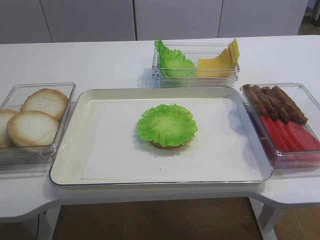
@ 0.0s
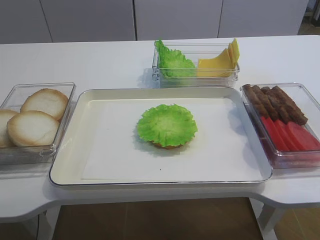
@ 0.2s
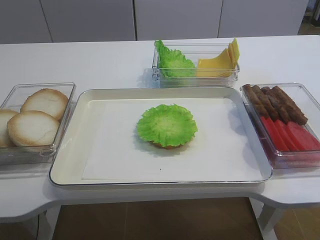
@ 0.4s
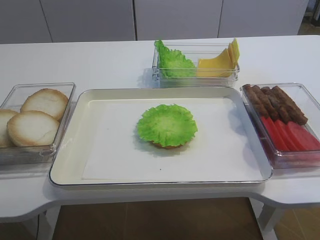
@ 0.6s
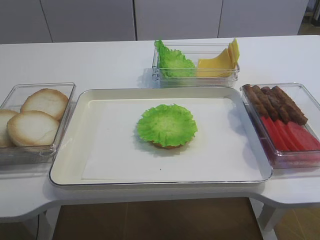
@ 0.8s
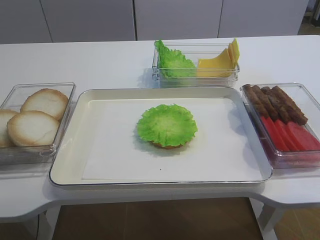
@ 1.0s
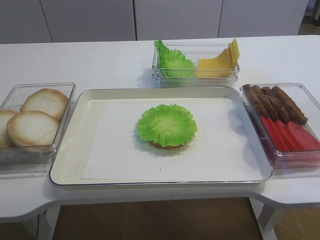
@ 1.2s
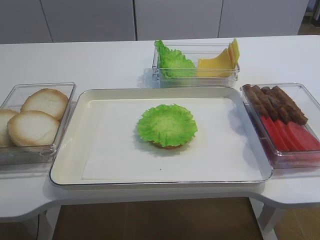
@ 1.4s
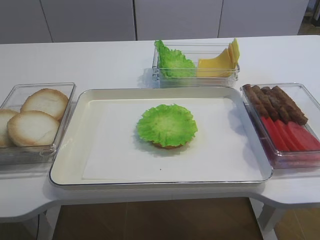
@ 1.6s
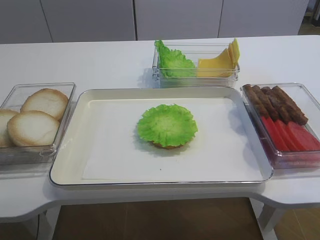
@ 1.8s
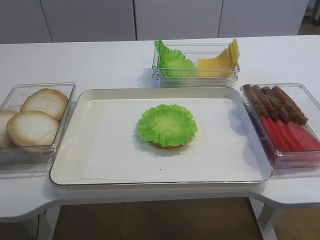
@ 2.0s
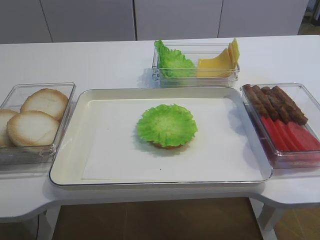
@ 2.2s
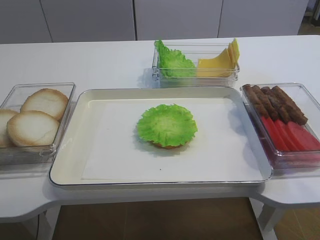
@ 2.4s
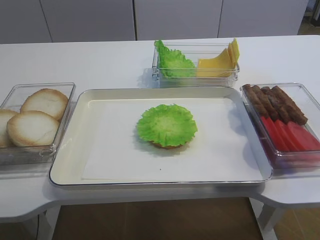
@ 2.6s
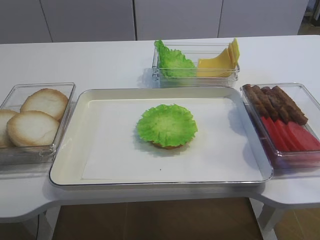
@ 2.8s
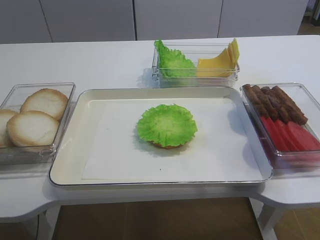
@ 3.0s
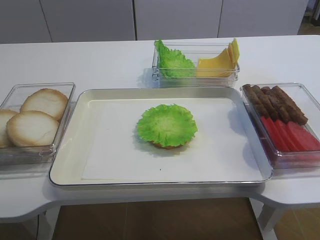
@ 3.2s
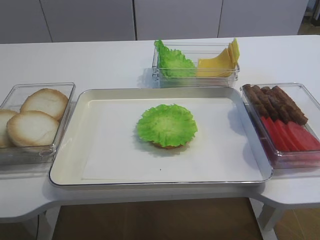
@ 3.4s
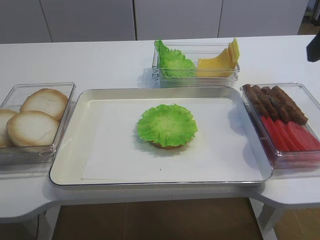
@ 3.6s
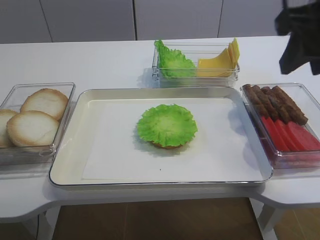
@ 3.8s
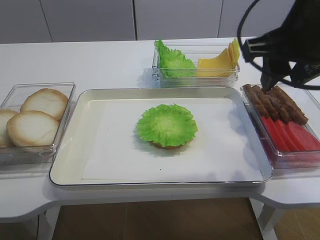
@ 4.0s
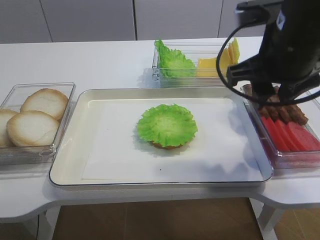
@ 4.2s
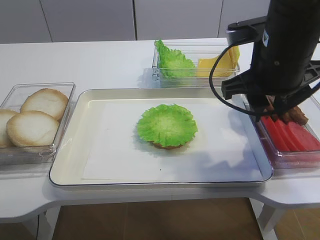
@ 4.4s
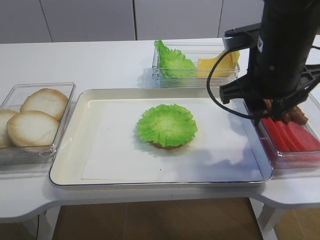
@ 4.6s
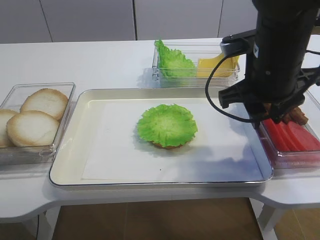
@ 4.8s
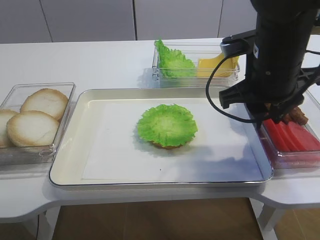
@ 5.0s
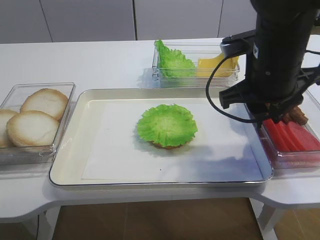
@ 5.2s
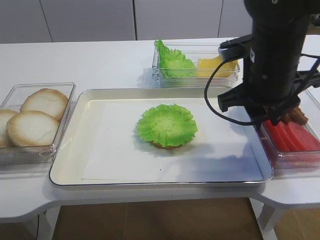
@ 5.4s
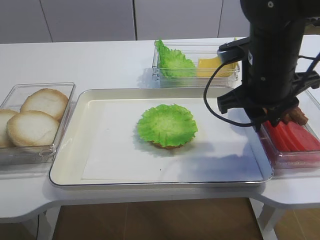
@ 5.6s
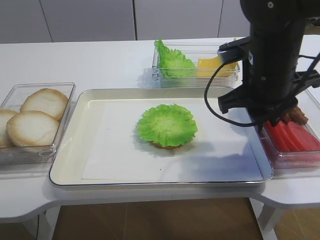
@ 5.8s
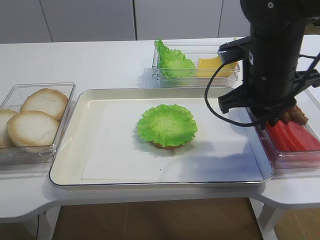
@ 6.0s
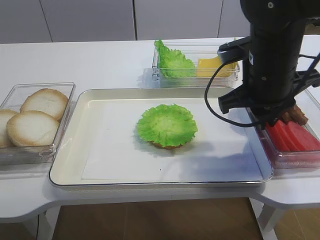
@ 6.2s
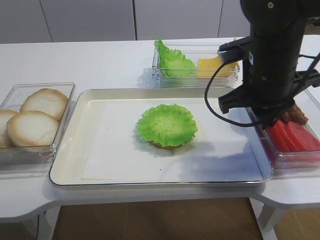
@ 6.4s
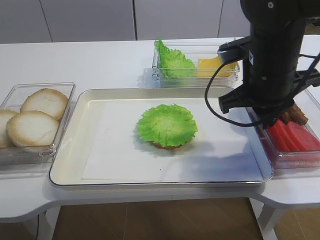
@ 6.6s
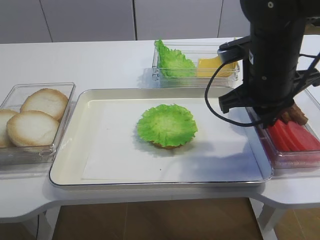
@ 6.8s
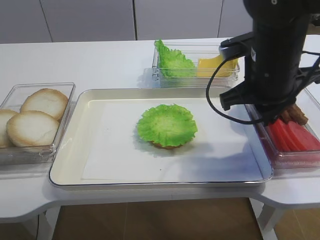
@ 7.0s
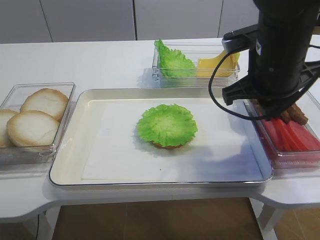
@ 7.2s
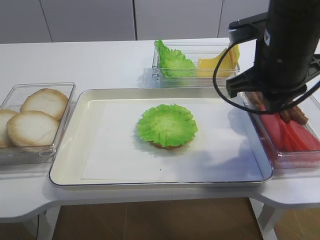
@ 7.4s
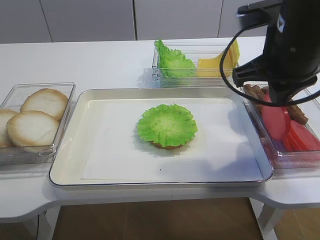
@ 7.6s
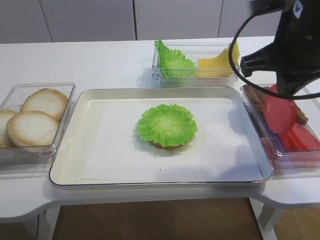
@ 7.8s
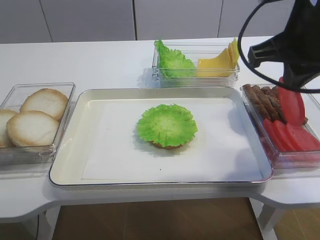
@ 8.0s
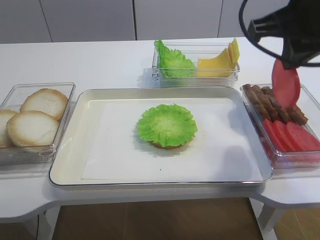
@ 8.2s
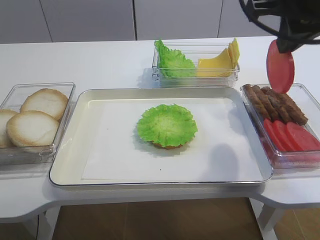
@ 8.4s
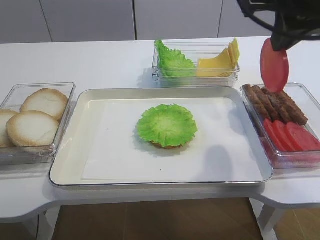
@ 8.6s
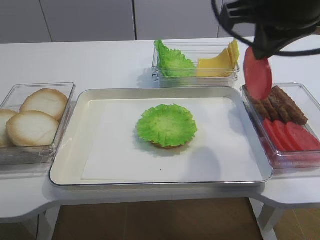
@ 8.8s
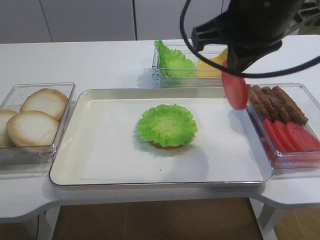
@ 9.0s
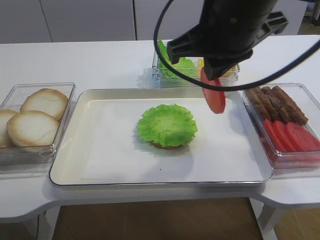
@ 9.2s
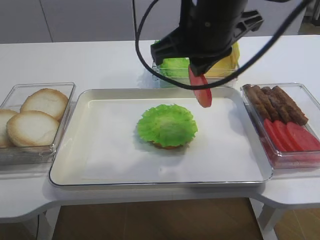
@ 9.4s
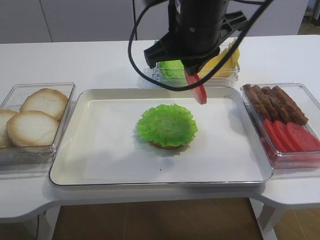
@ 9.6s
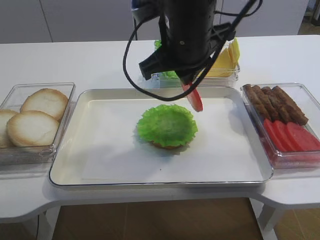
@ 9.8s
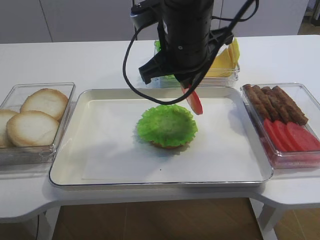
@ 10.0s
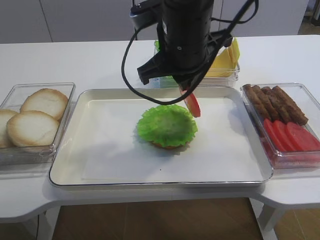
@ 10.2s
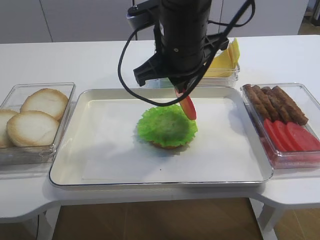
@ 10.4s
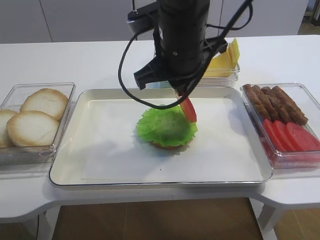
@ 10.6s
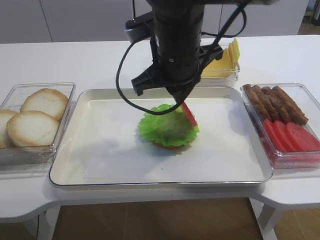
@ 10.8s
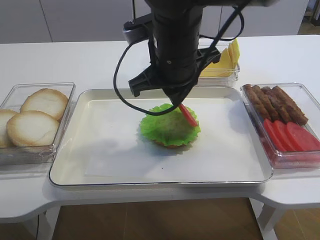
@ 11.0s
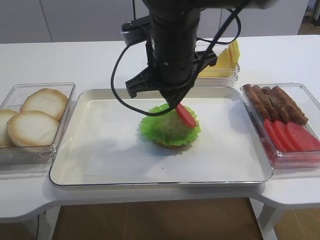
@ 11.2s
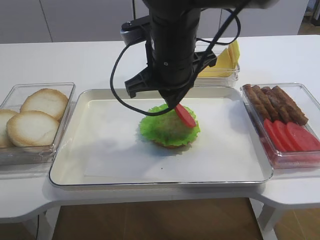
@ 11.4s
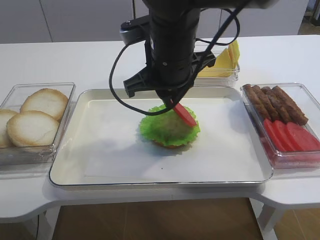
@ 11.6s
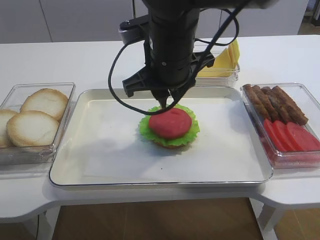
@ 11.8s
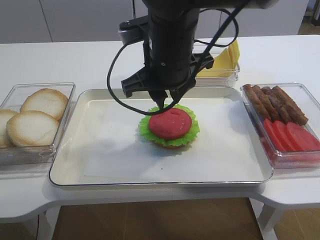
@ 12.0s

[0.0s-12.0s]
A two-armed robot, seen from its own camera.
Step, 0.0s to 7.6s: Pick up the tomato slice with the right gripper.
3.0s to 4.4s: The right gripper heads forward, to the left and downward, covering approximately 20 cm.
4.4s to 6.0s: The right gripper closes up.
6.0s to 7.6s: The right gripper ends up about 5 cm from where it was.
7.6s to 9.0s: The right gripper travels upward by about 5 cm.
9.0s to 10.4s: The right gripper shifts roughly 10 cm to the left, downward and forward.
10.4s to 12.0s: The right gripper opens its fingers.

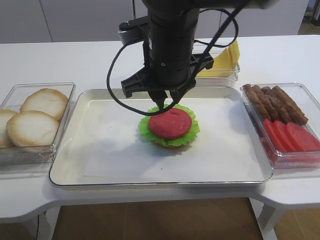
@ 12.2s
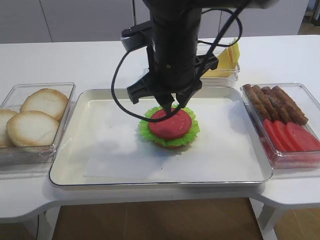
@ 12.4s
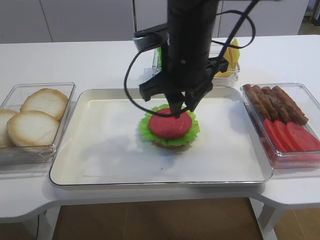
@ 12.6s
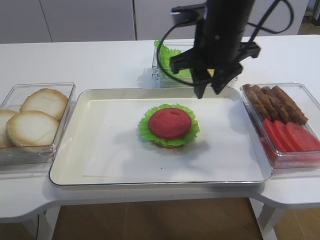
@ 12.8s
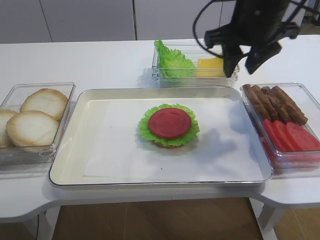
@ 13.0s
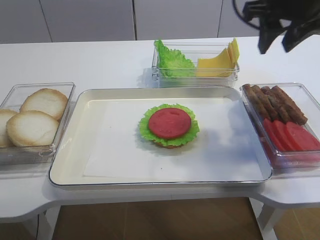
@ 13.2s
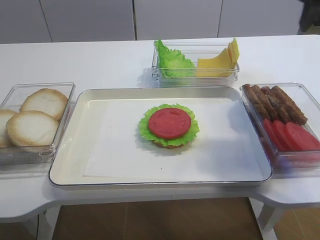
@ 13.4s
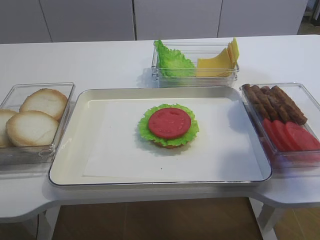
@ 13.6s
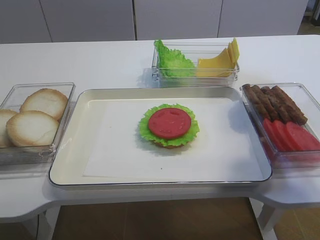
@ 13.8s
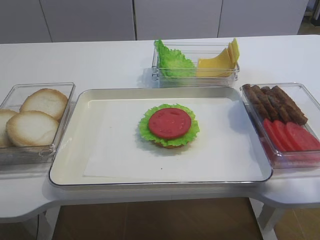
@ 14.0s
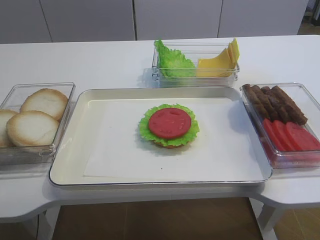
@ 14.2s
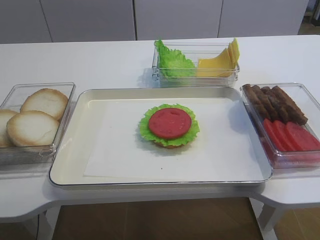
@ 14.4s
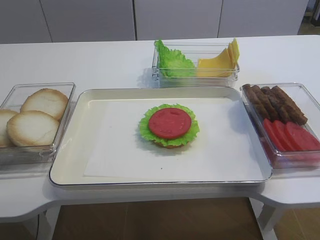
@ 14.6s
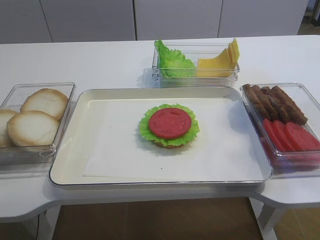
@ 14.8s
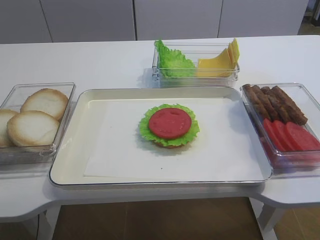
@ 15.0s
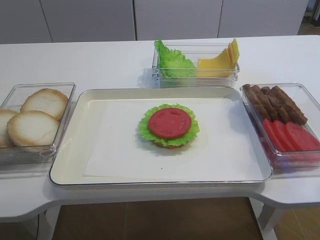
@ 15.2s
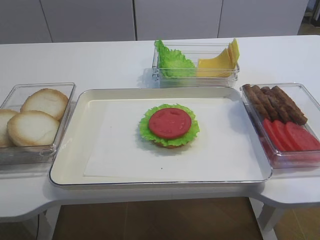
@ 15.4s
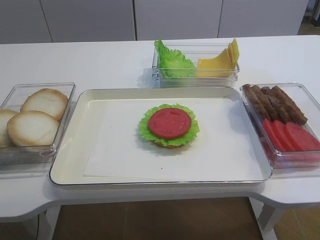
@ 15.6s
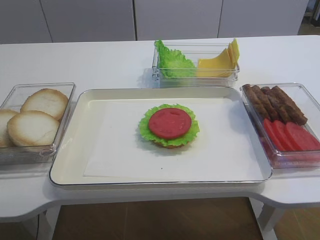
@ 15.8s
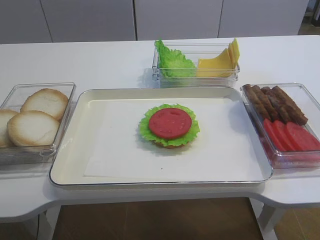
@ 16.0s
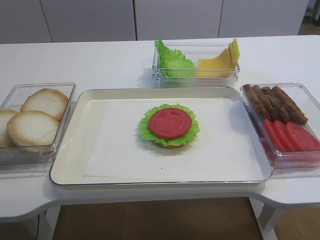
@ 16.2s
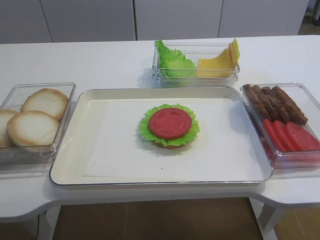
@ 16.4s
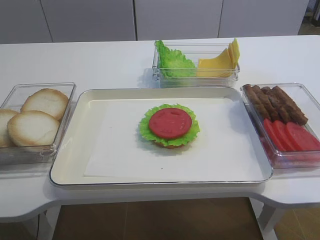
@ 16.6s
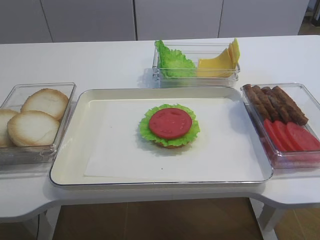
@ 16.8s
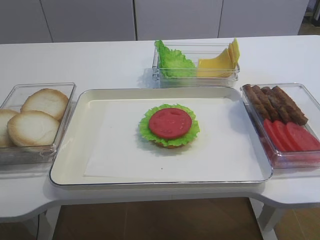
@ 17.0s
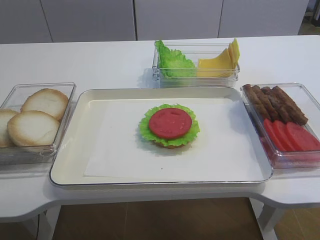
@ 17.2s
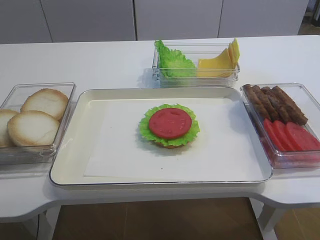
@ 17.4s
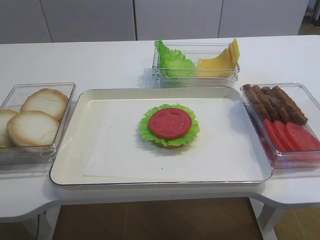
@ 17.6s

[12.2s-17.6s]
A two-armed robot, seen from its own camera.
12.2s to 13.6s: The right gripper goes approximately 30 cm to the right and upward.
13.6s to 15.0s: The right gripper heads backward, covering about 25 cm.
15.0s to 16.2s: The right gripper heads downward and backward, covering about 10 cm.
16.2s to 17.6s: The two grippers keep their place.

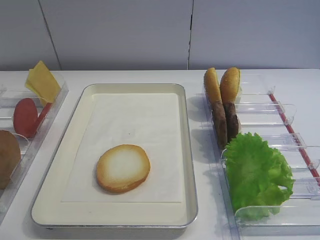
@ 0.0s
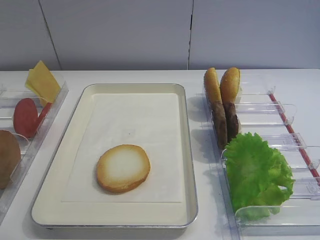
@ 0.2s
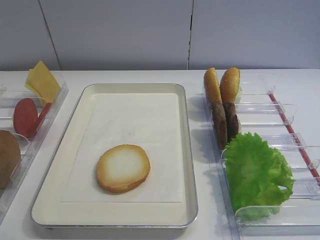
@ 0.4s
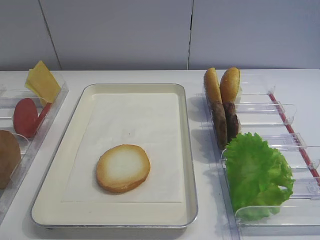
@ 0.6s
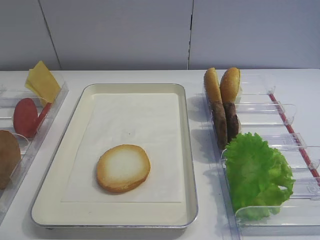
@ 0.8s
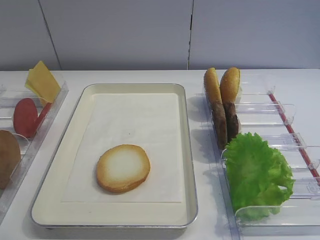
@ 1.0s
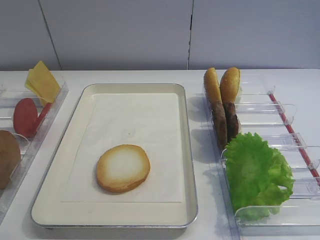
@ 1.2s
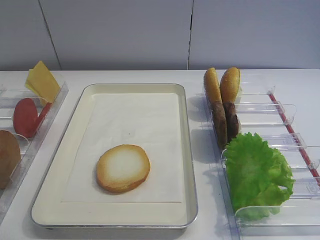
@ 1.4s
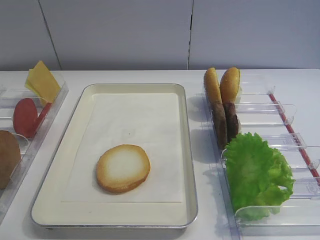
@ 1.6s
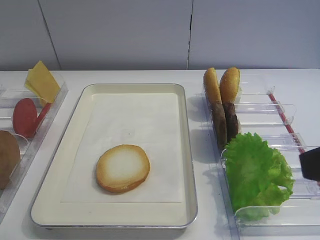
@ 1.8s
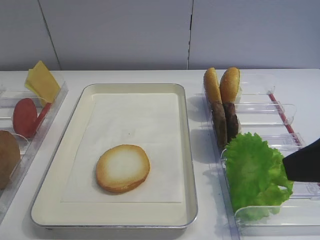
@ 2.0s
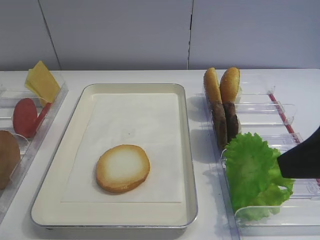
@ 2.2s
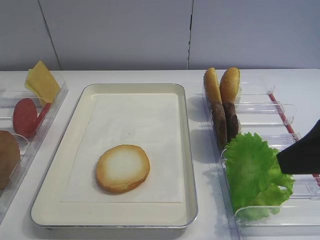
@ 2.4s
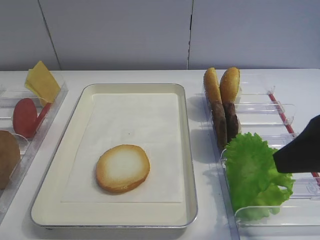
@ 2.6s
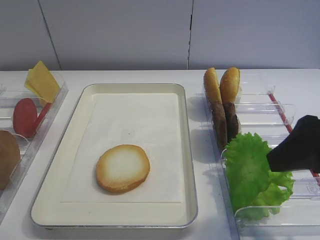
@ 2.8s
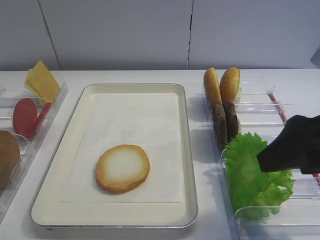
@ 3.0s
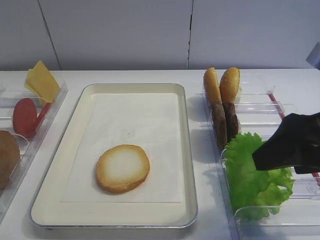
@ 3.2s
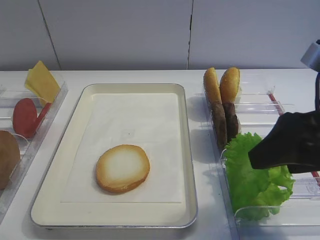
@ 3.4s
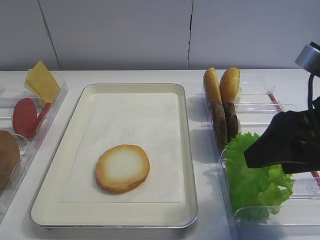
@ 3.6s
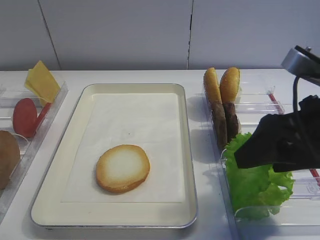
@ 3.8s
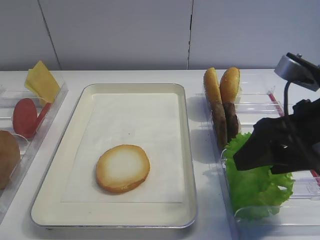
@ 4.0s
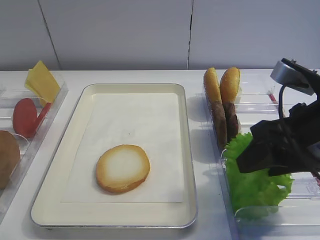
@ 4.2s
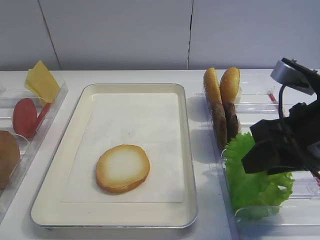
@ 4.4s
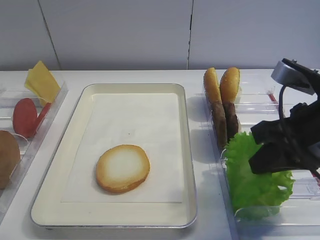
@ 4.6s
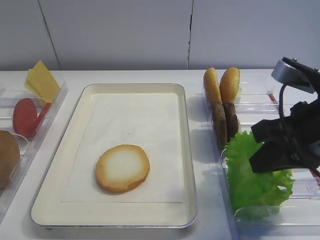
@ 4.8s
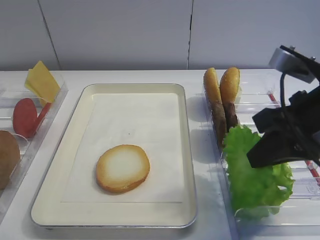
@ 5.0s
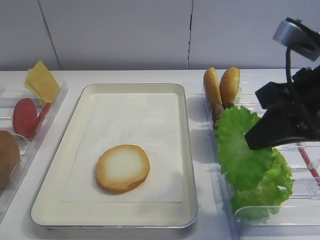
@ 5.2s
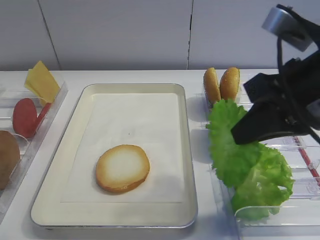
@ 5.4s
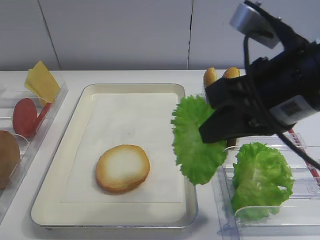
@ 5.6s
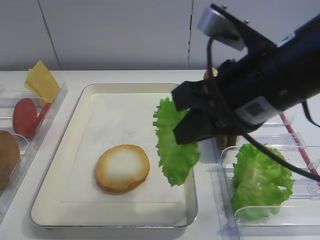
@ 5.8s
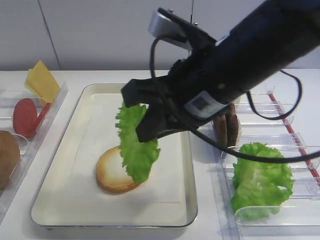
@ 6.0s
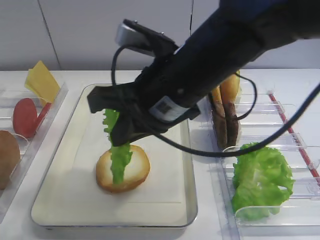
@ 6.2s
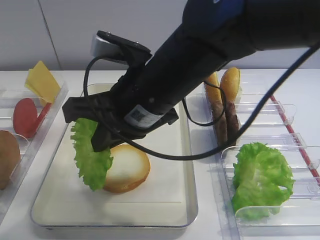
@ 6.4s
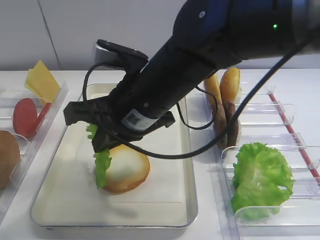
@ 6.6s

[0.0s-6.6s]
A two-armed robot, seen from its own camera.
Step, 0.0s to 5.2s: Pick up the lettuce leaf with the right gripper.
1.6s to 3.2s: The right gripper goes approximately 10 cm forward and downward.
3.2s to 5.0s: The right gripper closes up.
5.0s to 6.6s: The right gripper moves to the left, approximately 20 cm.
